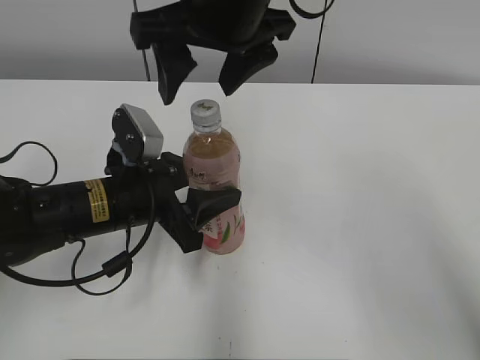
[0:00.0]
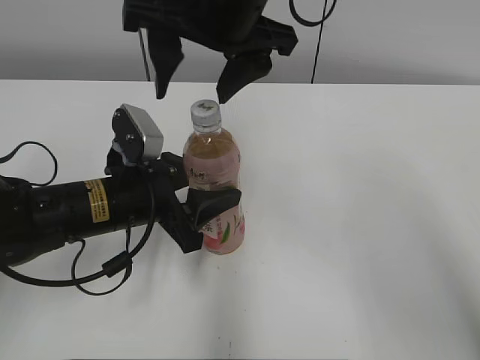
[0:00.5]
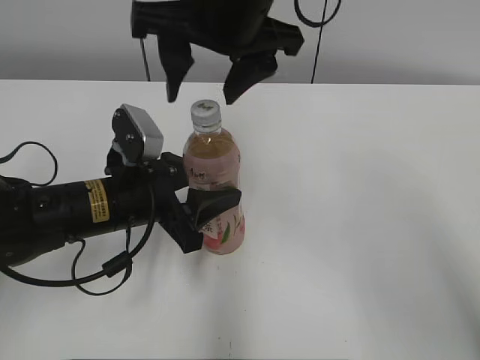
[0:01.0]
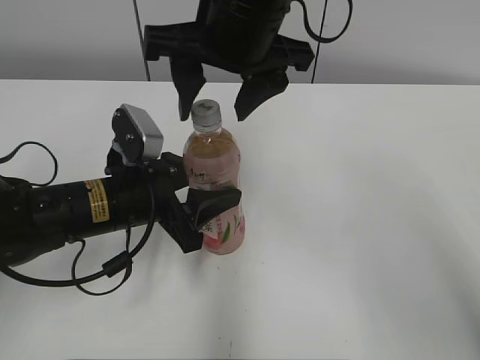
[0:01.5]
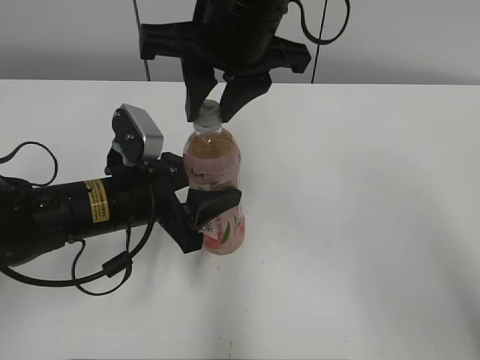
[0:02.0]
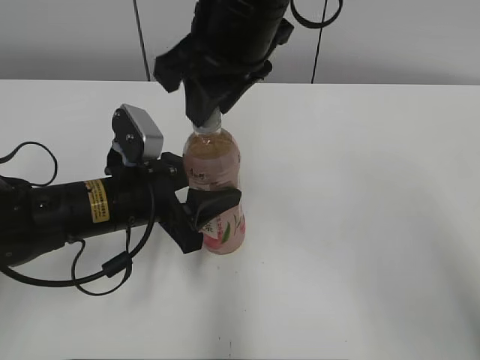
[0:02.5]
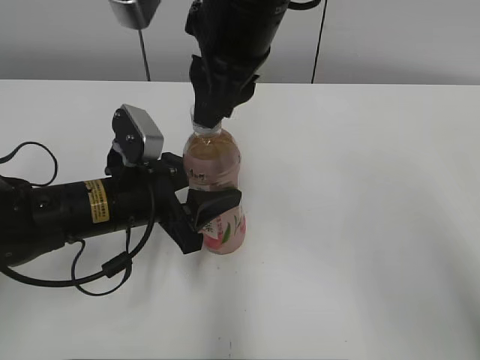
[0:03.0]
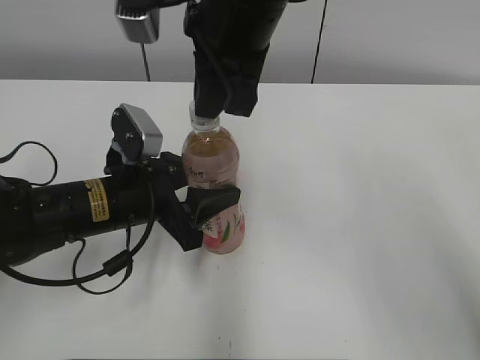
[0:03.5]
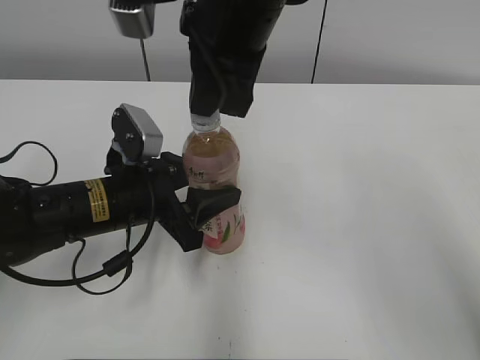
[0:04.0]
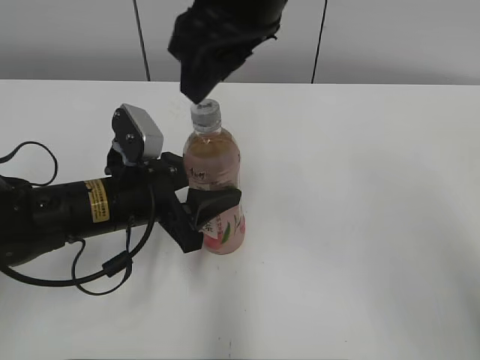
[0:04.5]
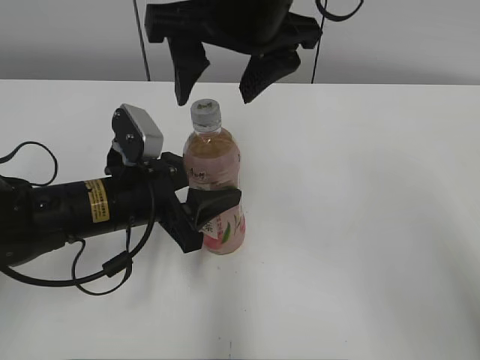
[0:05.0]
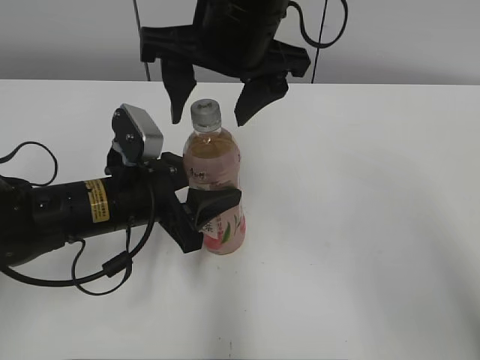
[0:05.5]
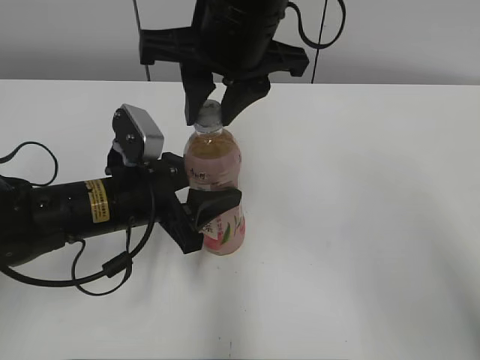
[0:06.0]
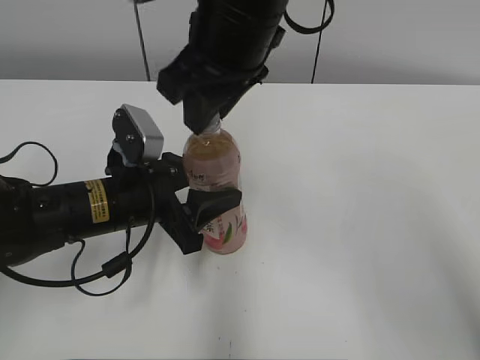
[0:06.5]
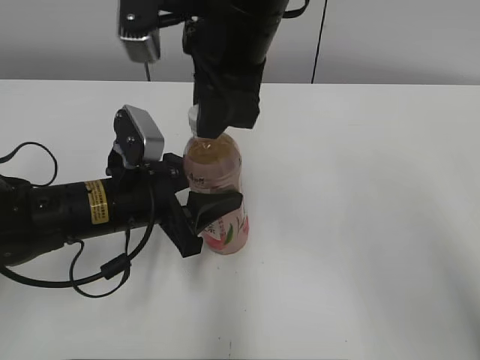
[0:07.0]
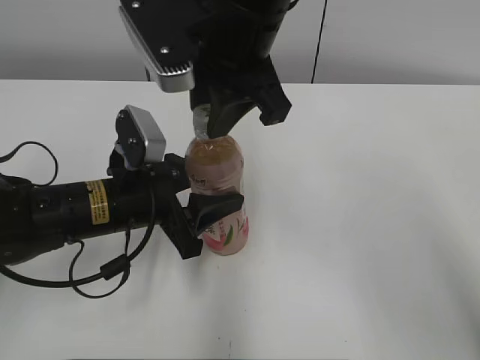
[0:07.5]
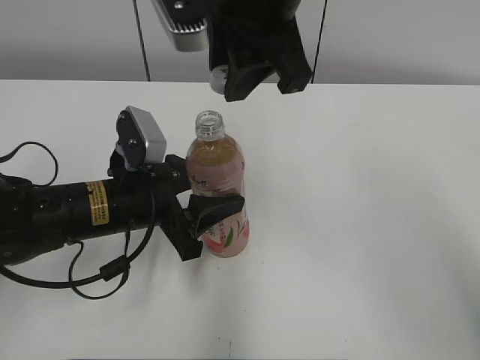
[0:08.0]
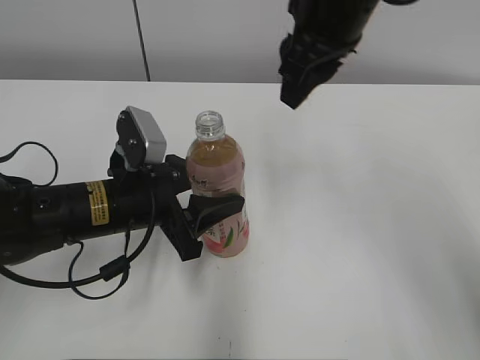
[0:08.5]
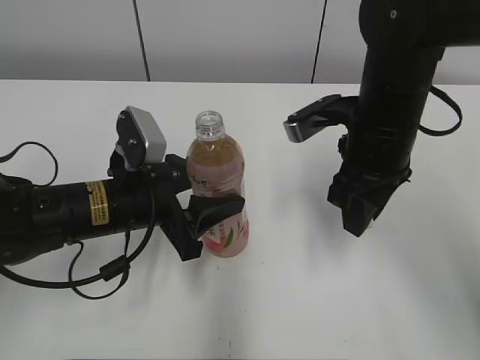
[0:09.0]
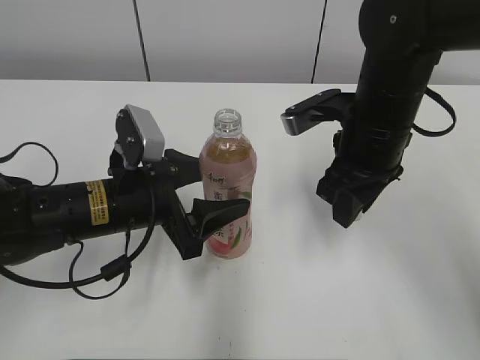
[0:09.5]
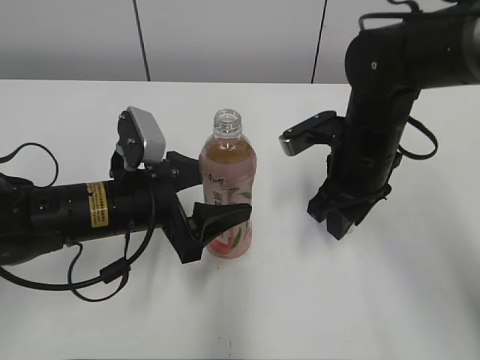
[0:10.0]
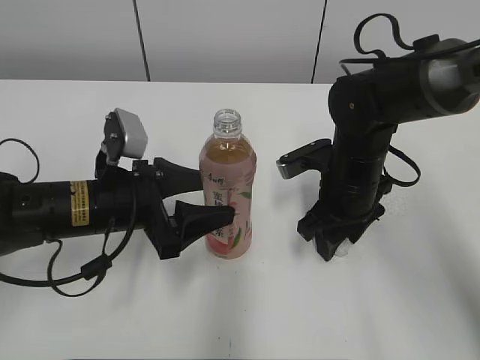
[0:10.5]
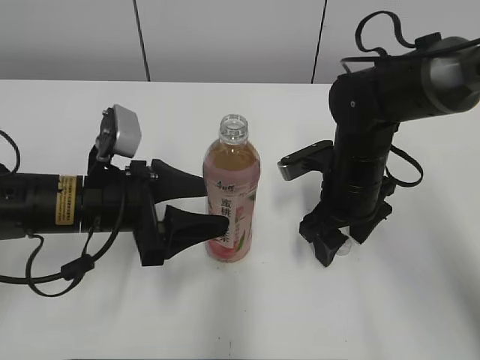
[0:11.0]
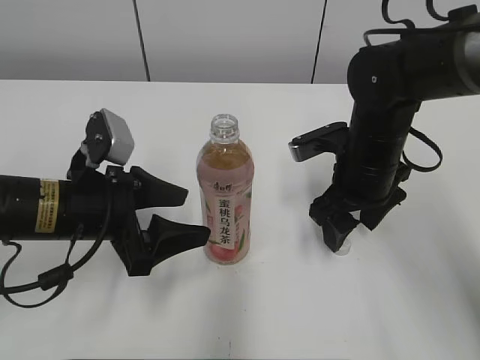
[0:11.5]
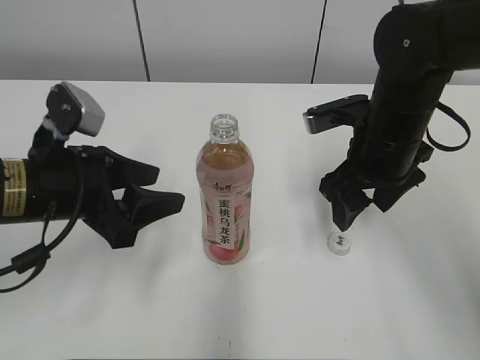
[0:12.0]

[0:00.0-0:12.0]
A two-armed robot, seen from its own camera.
Step, 0:10.0 to 0:11.0: Place the bottle cap on the right.
0:00.0 to 0:02.0: The right gripper closes its fingers.
0:04.0 to 0:06.0: The right gripper opens, then closes again.
0:08.0 to 0:10.0: The left gripper opens up. Meanwhile the right gripper travels downward and to the right by roughly 20 cm.
0:10.0 to 0:12.0: The right gripper opens its fingers. The left gripper moves to the left, about 5 cm.

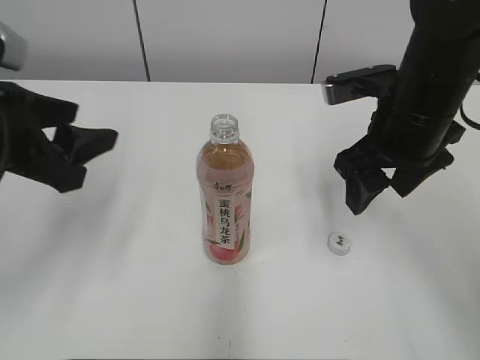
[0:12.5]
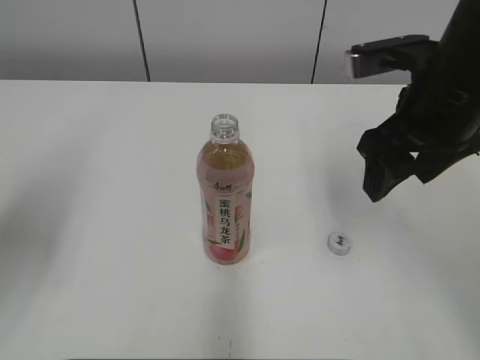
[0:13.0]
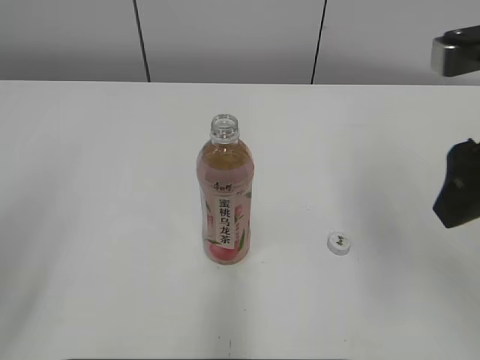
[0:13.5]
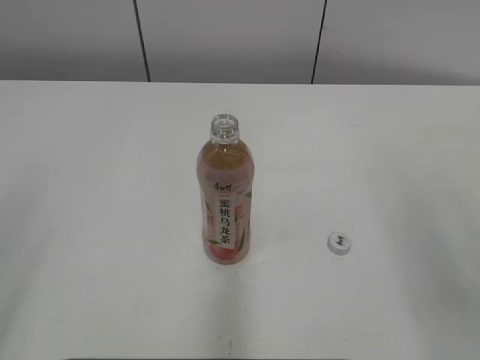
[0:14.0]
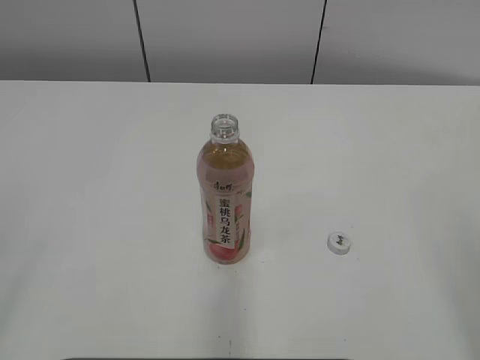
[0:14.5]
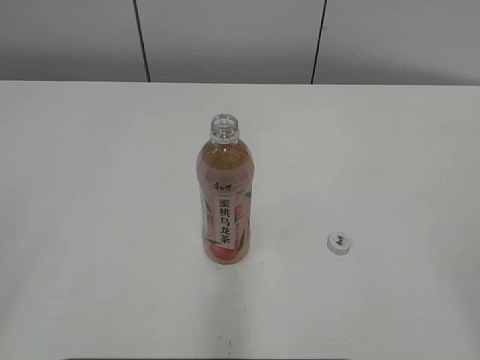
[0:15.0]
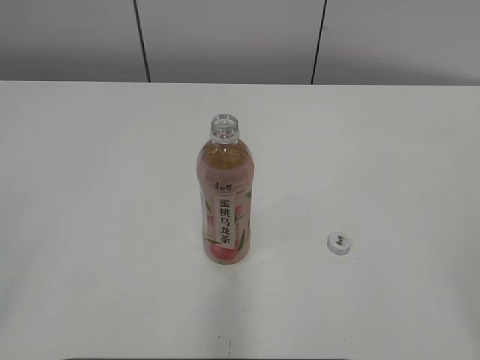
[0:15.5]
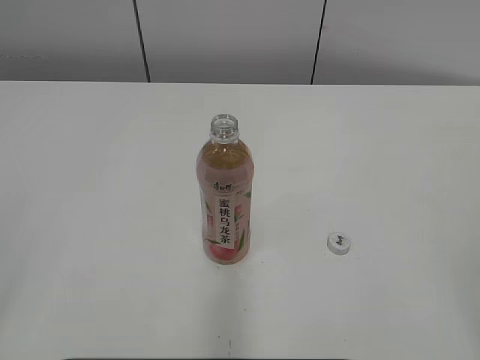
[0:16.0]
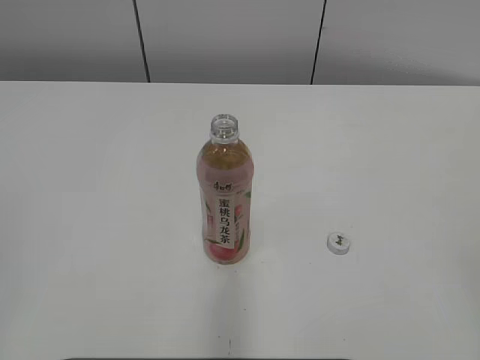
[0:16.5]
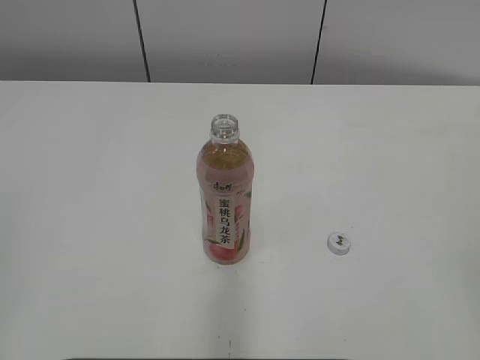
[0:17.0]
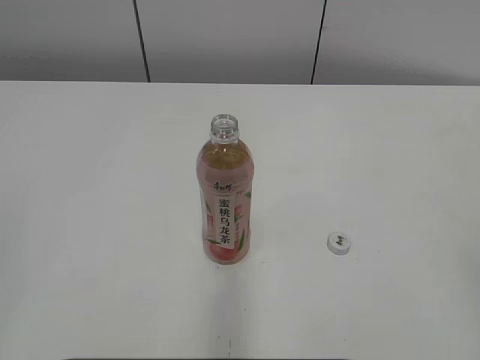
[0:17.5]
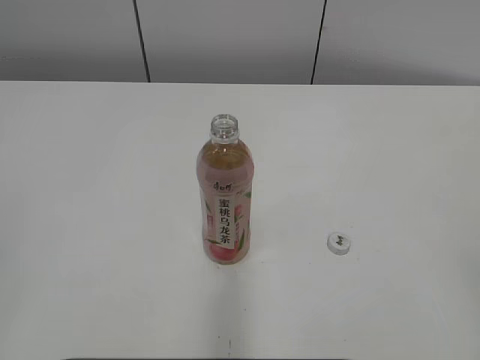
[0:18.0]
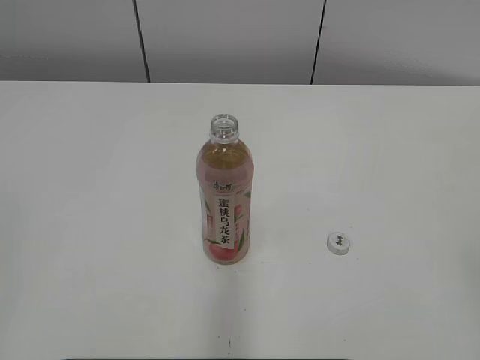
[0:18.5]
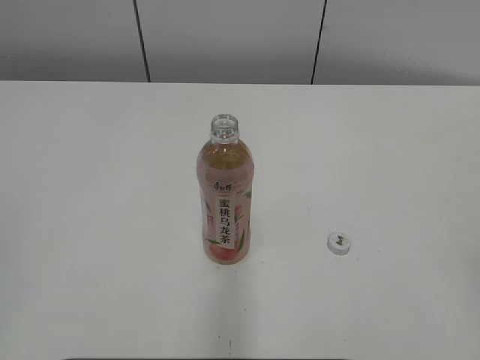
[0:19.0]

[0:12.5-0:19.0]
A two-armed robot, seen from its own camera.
0:12.5 to 0:14.5: The left gripper heads backward and to the left, covering about 25 cm; the right gripper travels backward and to the right by approximately 30 cm.
